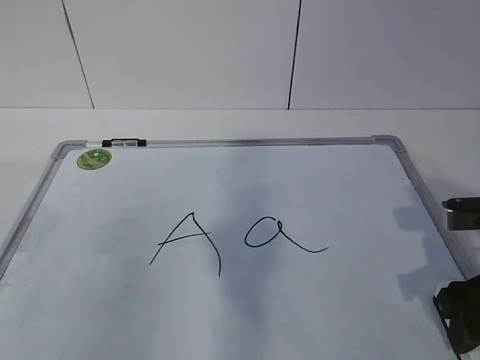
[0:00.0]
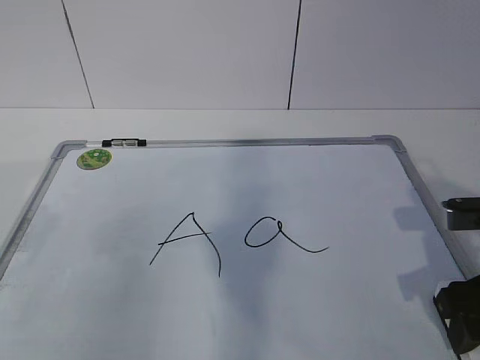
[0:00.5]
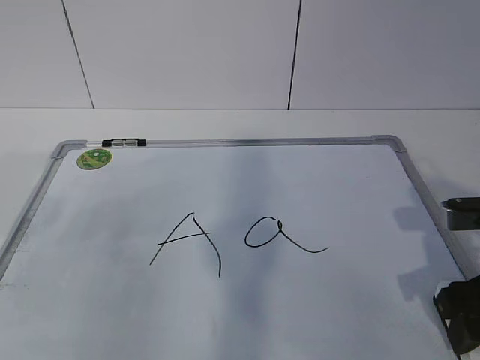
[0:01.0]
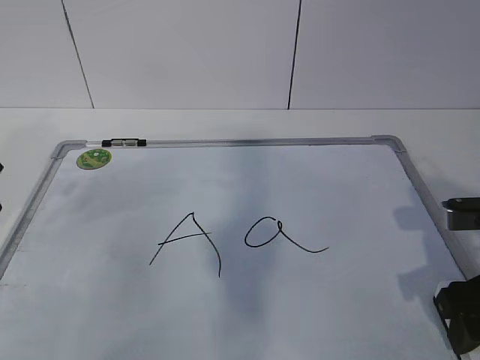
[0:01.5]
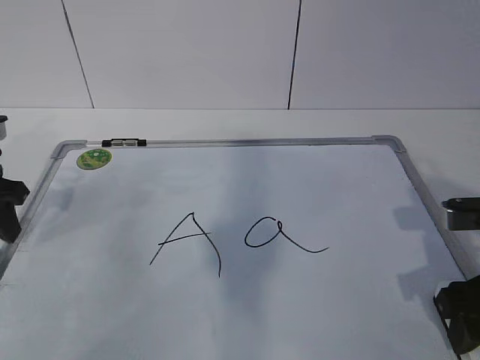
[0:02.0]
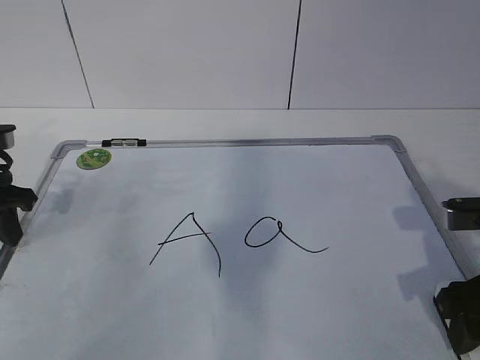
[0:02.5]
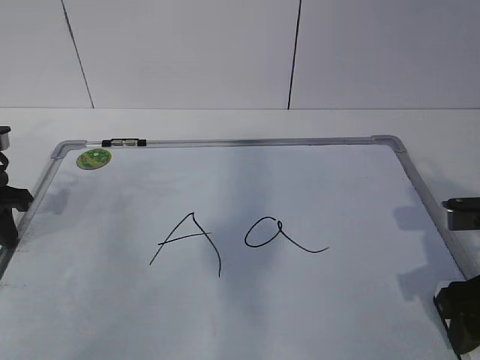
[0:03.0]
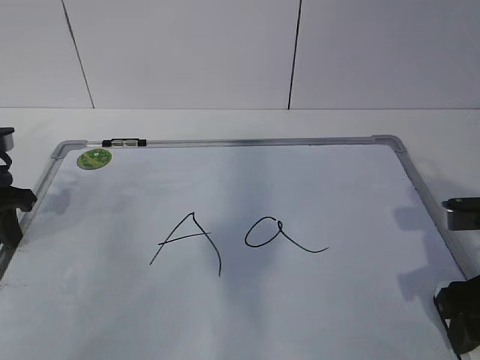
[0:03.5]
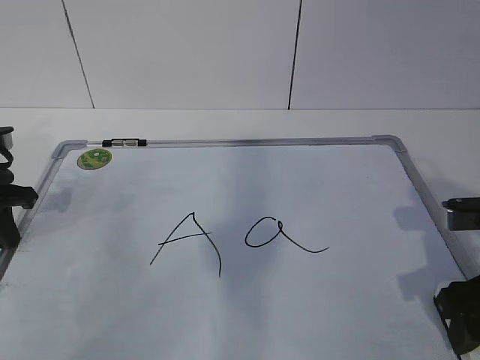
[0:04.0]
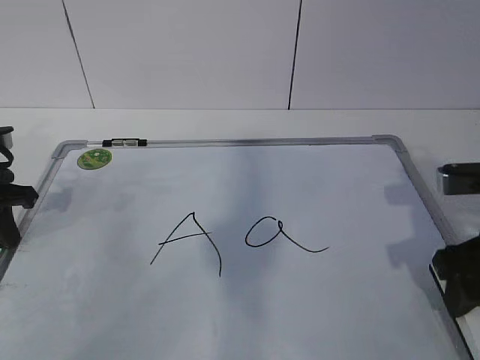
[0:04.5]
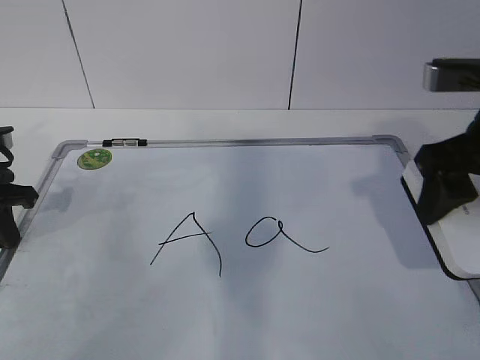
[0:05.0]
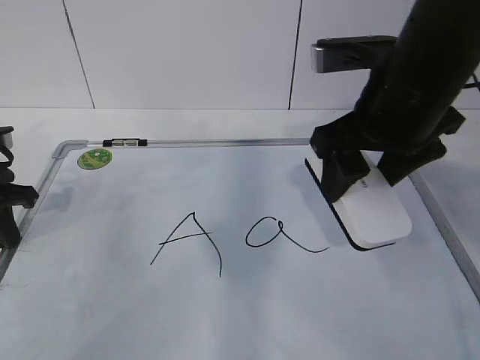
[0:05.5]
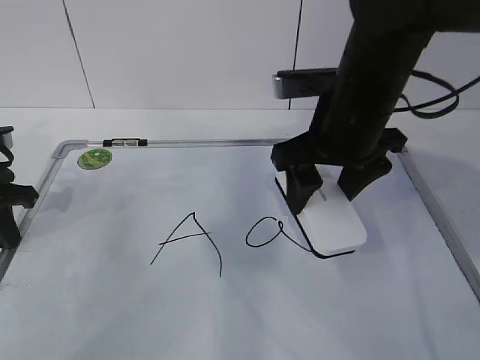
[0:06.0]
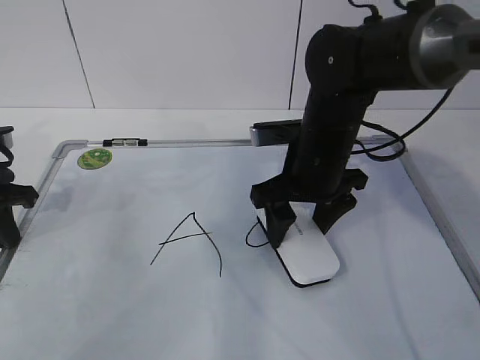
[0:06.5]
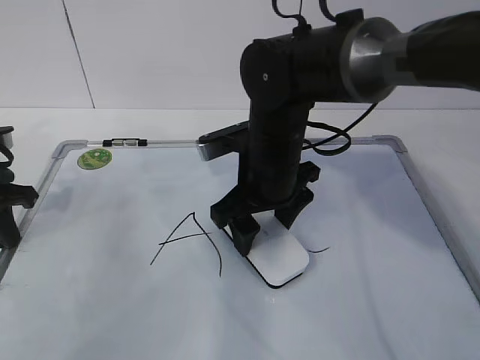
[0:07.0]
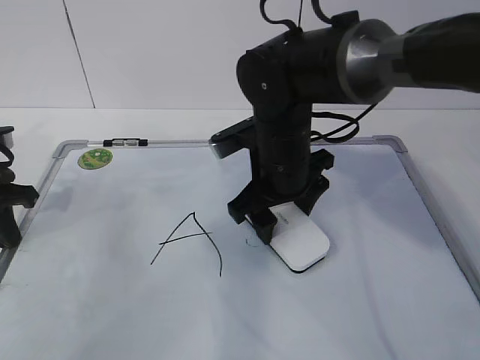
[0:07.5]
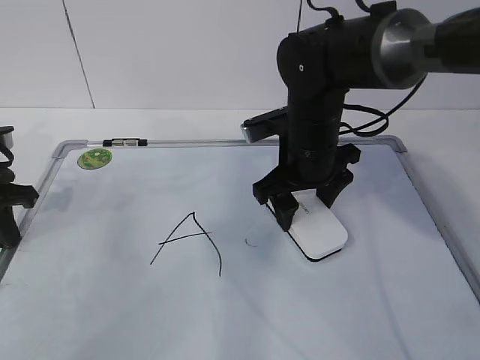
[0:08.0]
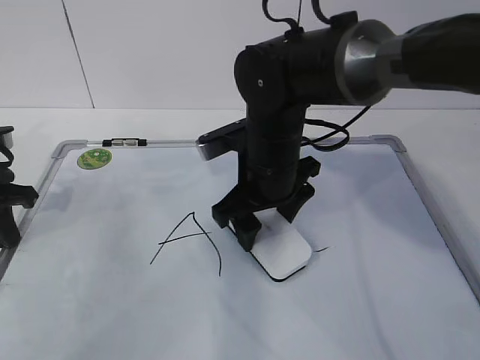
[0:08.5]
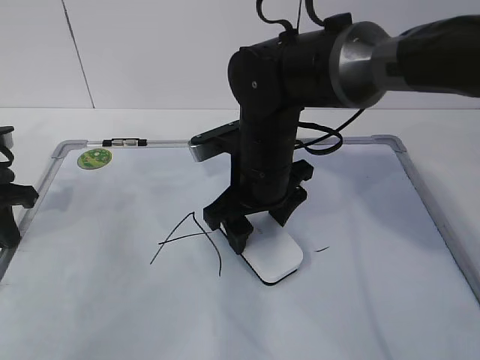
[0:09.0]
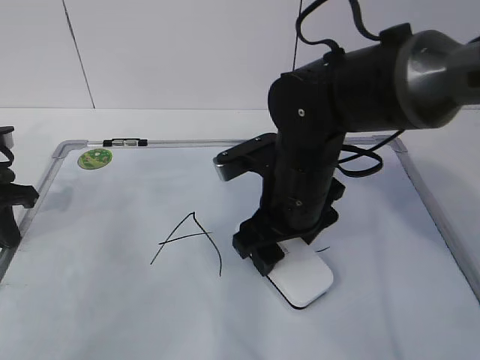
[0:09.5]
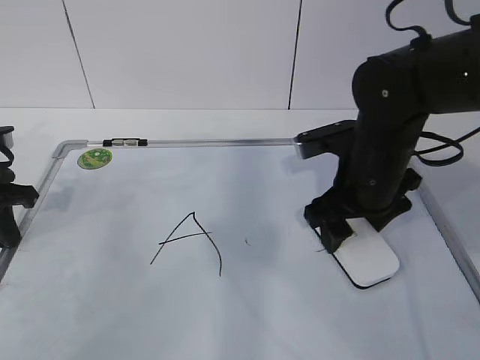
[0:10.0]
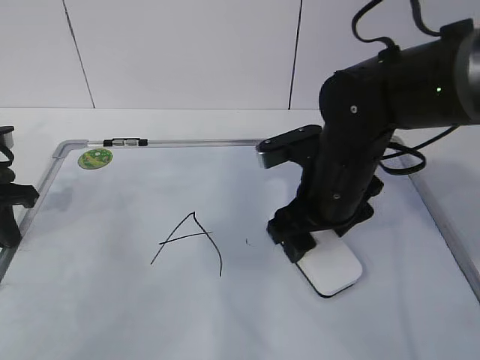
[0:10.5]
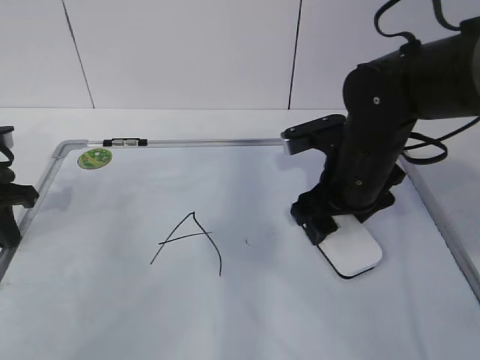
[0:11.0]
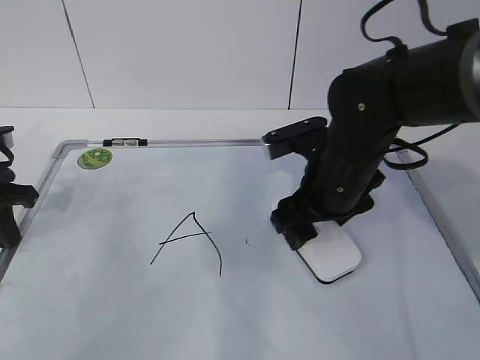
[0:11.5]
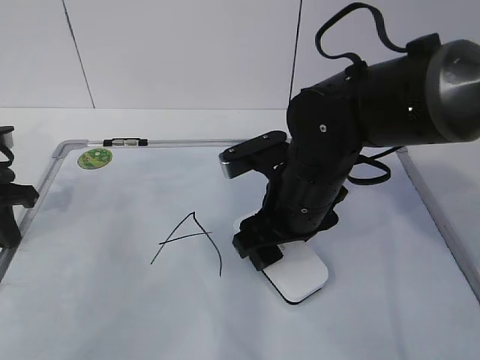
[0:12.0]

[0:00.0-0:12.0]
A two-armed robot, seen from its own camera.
Task of the whole recording: pick up the eraser on the blackboard and erase the letter "a".
Step, 0:01.5 to 0:08.5: Erase the letter a with your right hand.
Step, 0:09.0 to 0:10.5: Put down the eraser with your right hand.
0:00.0 to 0:02.0: The left gripper heads forward and downward, covering approximately 20 cm, and closes.
0:02.0 to 0:04.0: The left gripper closes up.
0:04.0 to 0:06.0: The right gripper goes some 20 cm to the left, forward and upward.
0:06.0 to 0:08.0: The right gripper travels downward by about 5 cm.
0:08.0 to 0:10.0: The right gripper travels to the right by some 5 cm.
0:10.0 to 0:12.0: The right gripper is displaced to the left by about 5 cm.

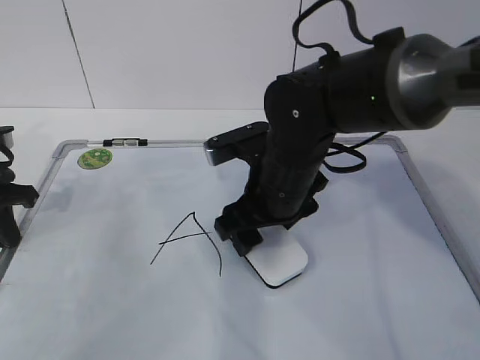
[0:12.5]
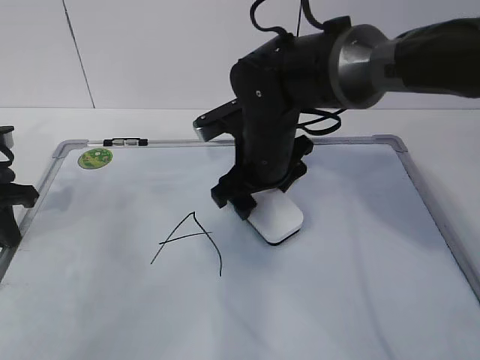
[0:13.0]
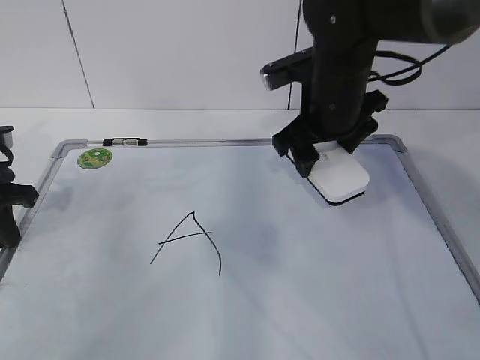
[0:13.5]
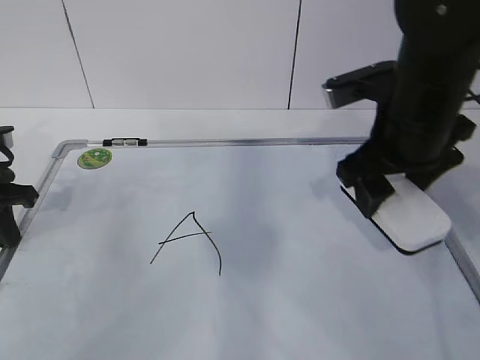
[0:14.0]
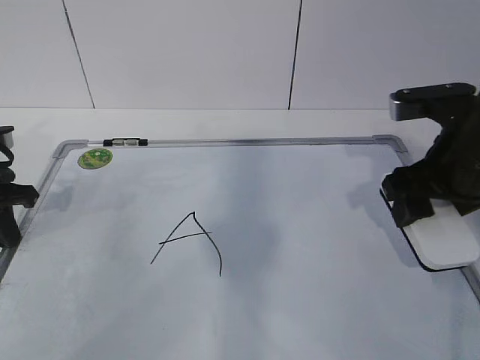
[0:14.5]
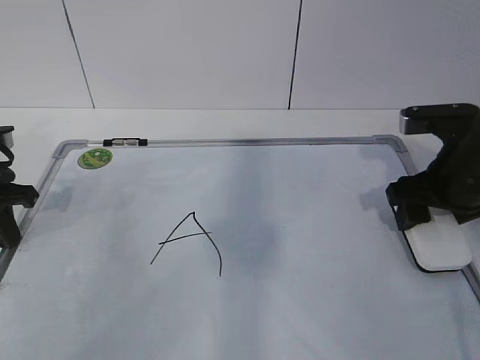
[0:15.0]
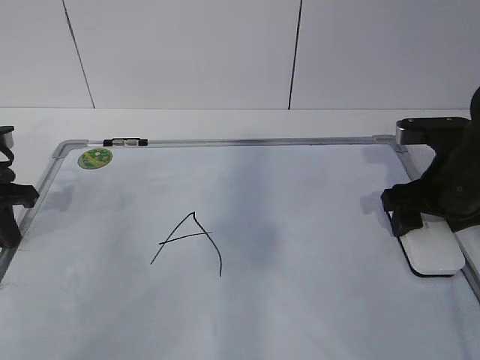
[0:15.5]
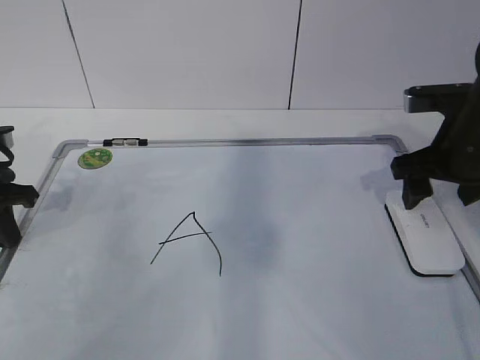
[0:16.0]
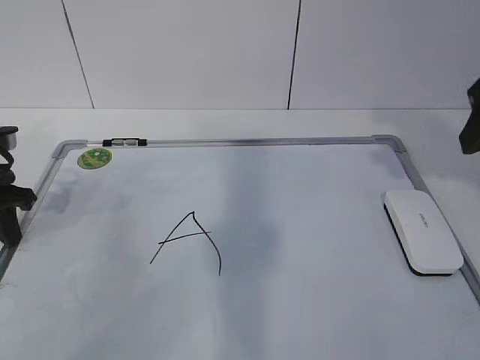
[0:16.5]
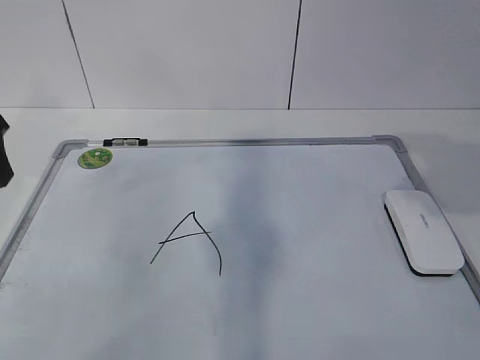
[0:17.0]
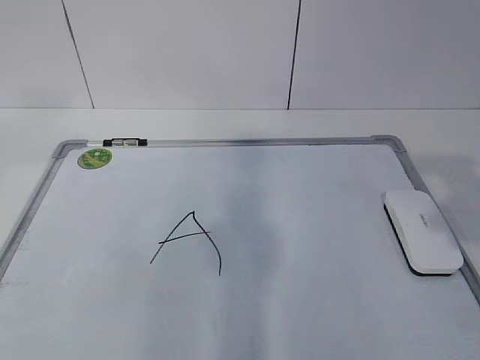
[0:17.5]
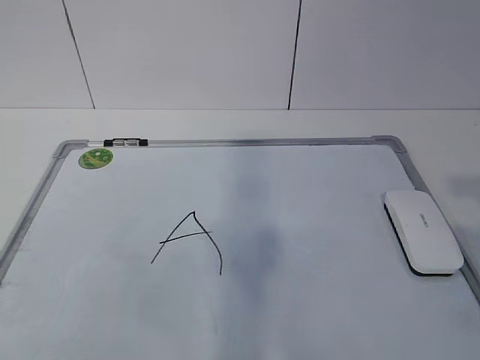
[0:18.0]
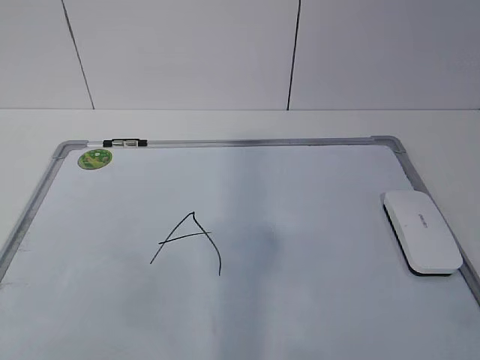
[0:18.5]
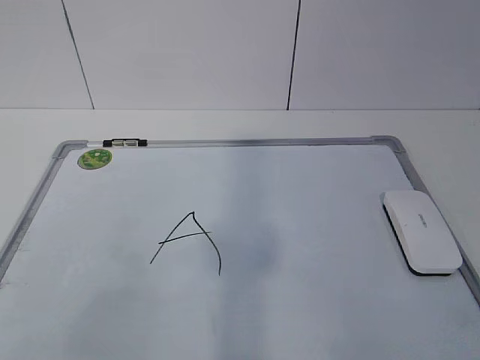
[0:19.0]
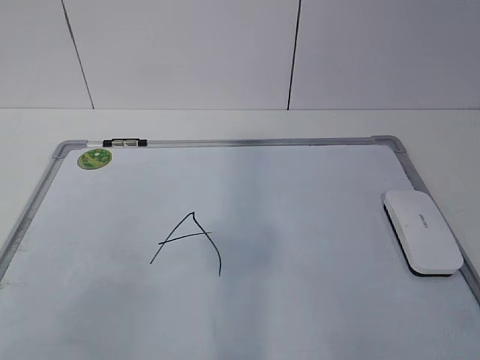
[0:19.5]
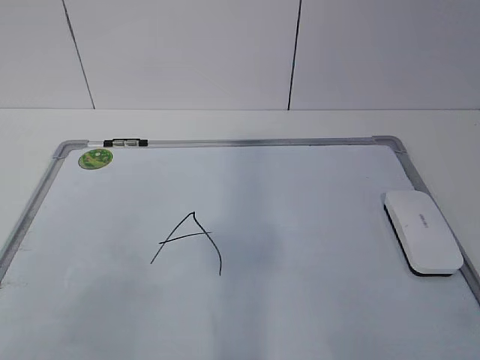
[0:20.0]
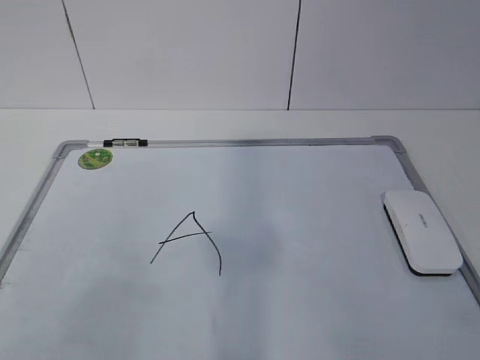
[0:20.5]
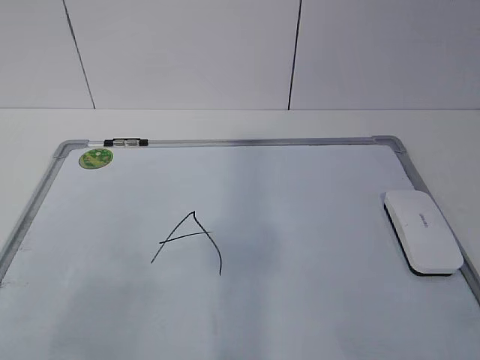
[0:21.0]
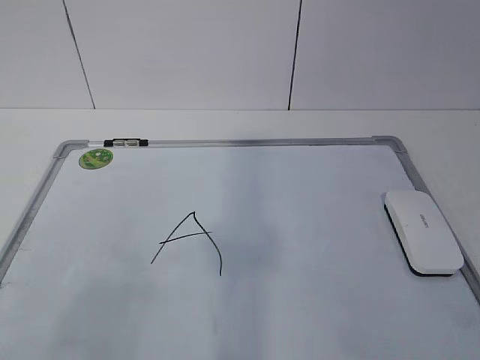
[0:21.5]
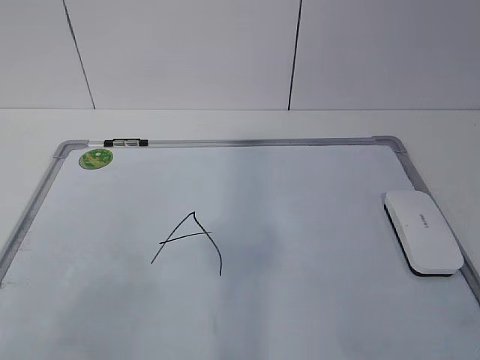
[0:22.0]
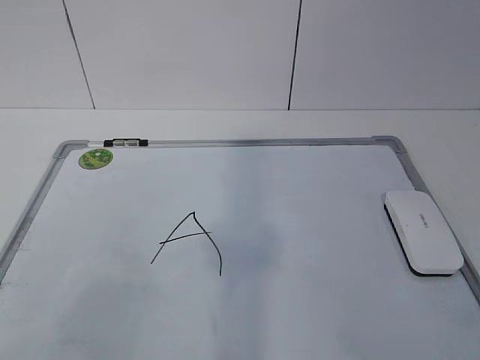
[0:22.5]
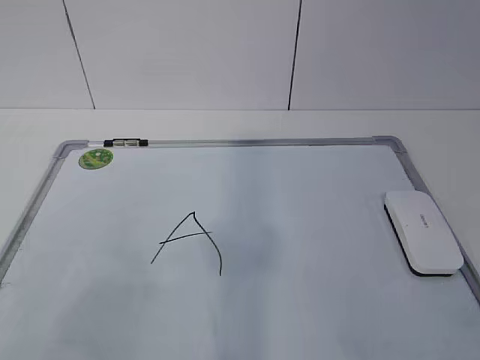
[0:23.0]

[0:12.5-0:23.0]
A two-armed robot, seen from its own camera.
Task of the whole recording: pick up the eraser on the blackboard and erase the letter "a".
0:12.5 to 0:14.5: The right gripper travels to the right by about 15 cm.
0:14.5 to 0:16.5: The right gripper heads upward, covering roughly 10 cm.
0:16.5 to 0:19.0: The right gripper shifts approximately 25 cm backward. Meanwhile the left gripper moves backward and upward, approximately 35 cm, and opens up.
0:21.0 to 0:23.0: Both grippers stay put.
